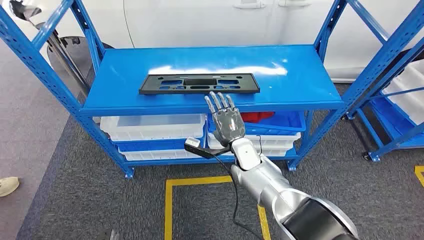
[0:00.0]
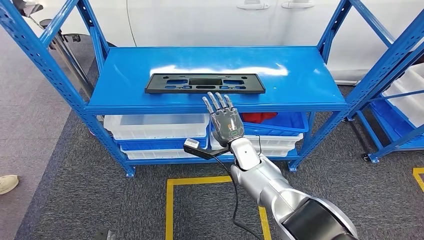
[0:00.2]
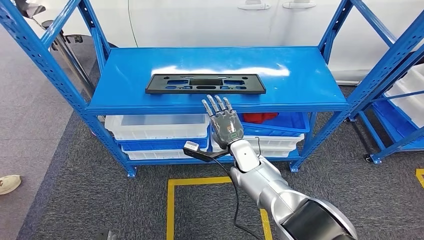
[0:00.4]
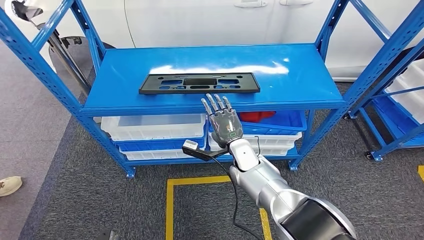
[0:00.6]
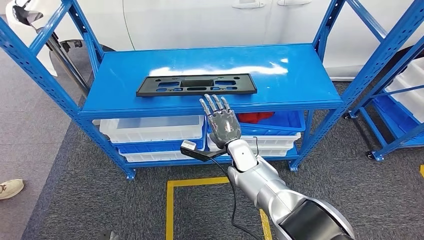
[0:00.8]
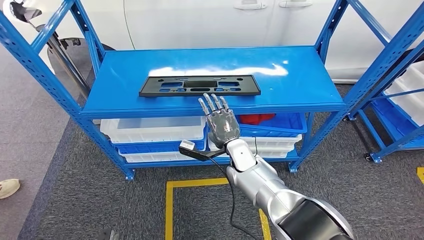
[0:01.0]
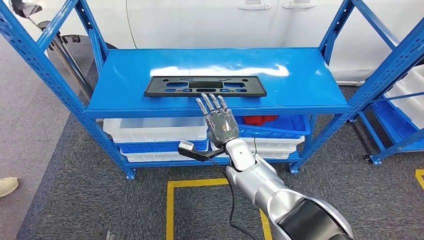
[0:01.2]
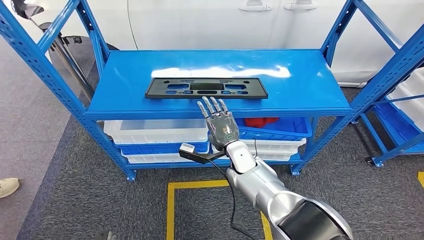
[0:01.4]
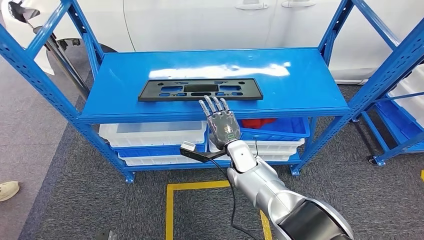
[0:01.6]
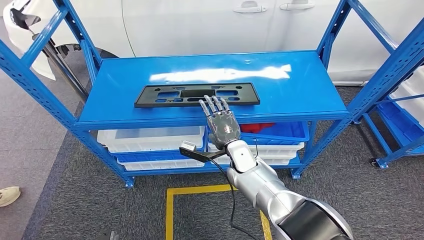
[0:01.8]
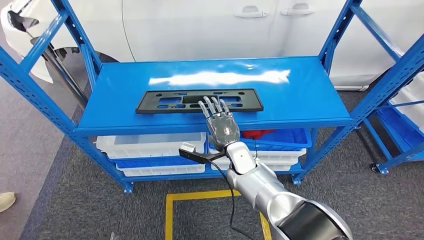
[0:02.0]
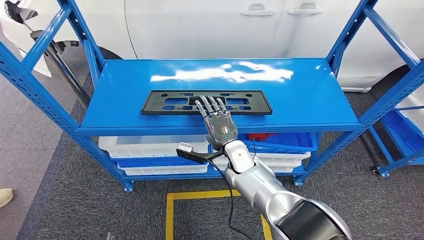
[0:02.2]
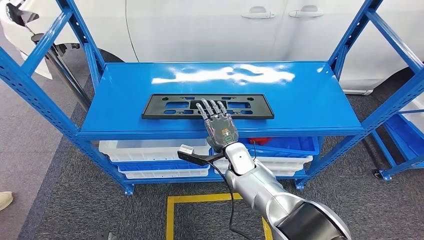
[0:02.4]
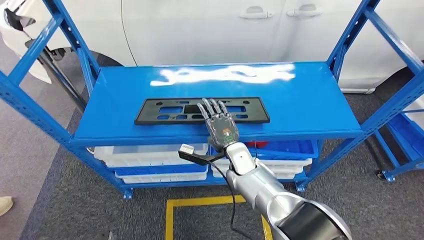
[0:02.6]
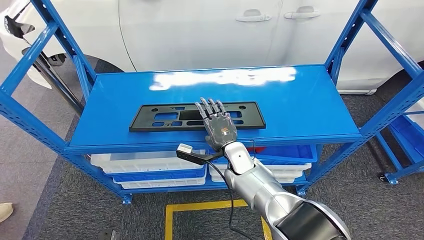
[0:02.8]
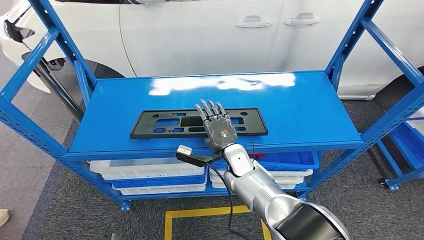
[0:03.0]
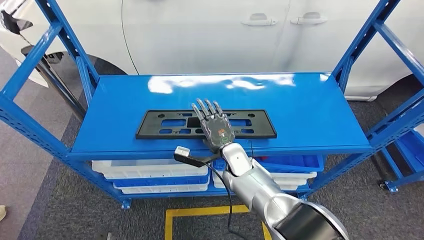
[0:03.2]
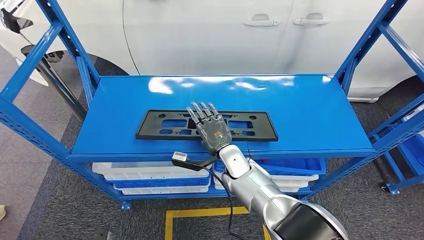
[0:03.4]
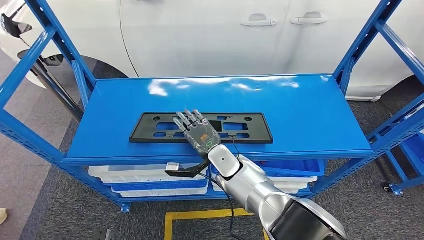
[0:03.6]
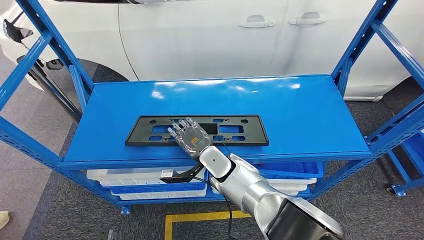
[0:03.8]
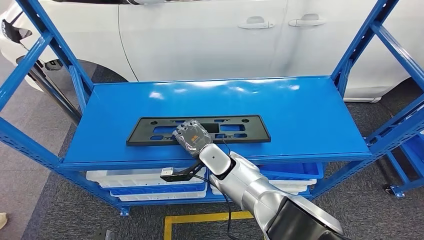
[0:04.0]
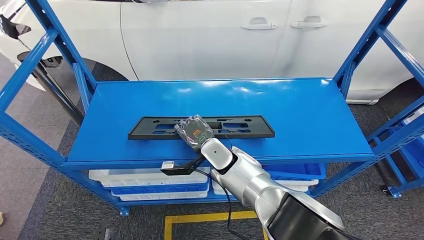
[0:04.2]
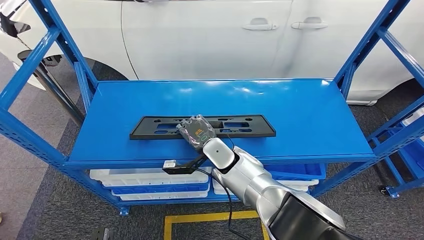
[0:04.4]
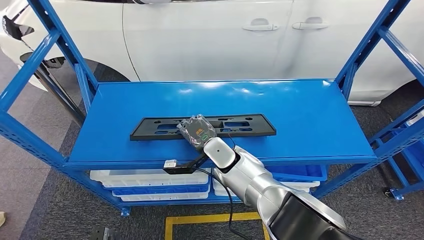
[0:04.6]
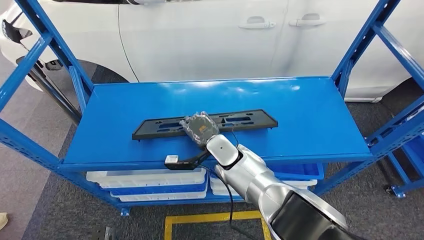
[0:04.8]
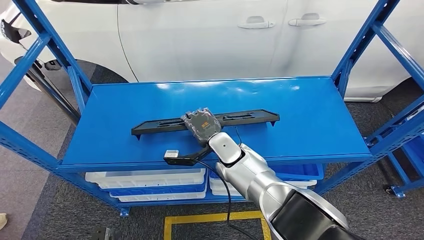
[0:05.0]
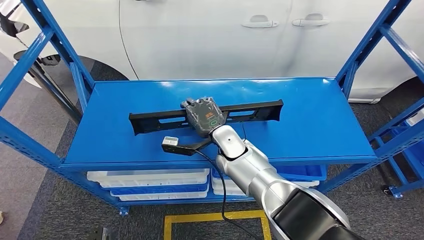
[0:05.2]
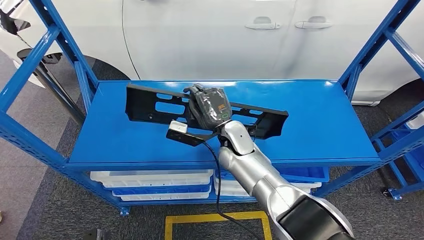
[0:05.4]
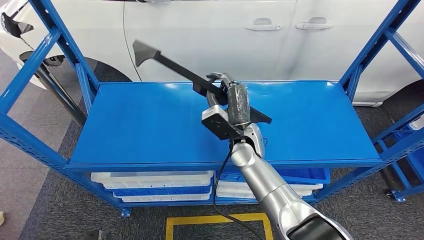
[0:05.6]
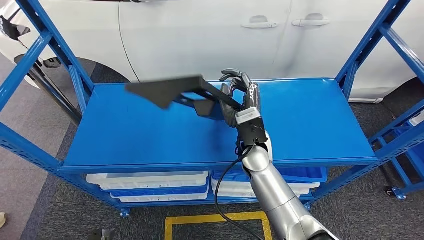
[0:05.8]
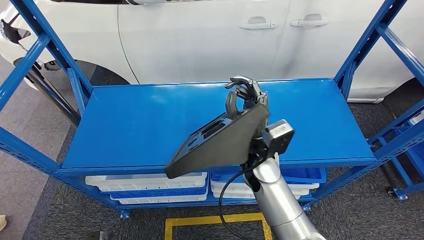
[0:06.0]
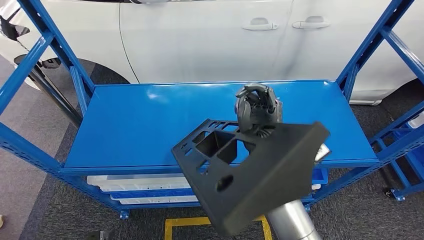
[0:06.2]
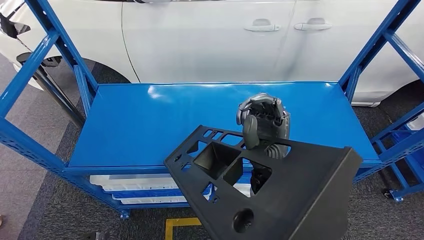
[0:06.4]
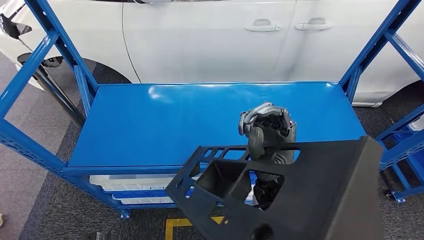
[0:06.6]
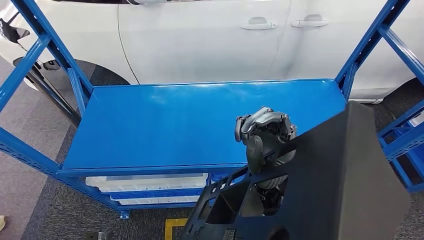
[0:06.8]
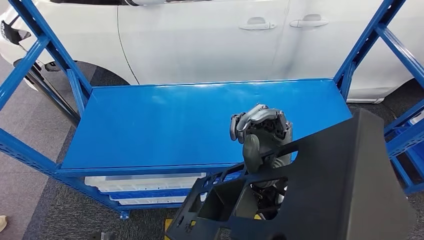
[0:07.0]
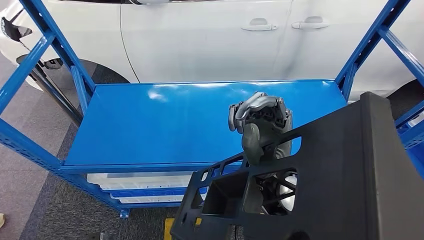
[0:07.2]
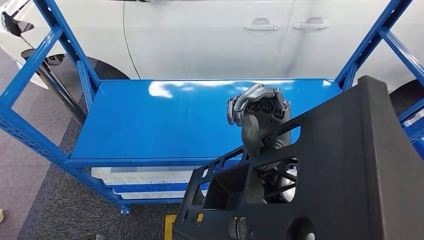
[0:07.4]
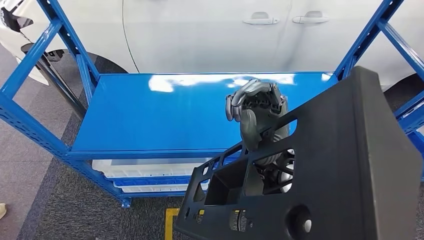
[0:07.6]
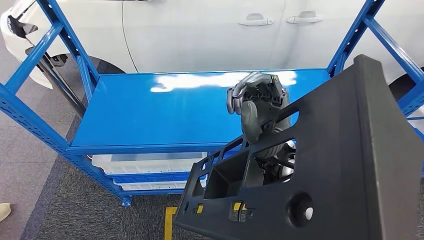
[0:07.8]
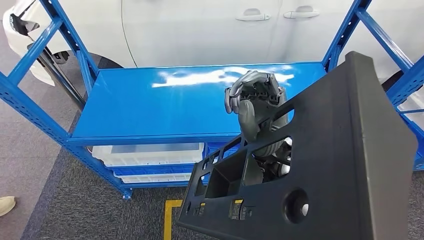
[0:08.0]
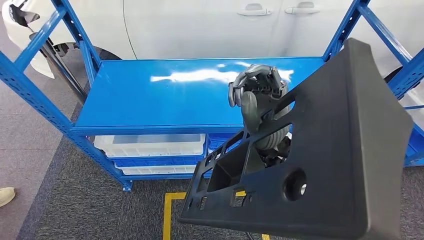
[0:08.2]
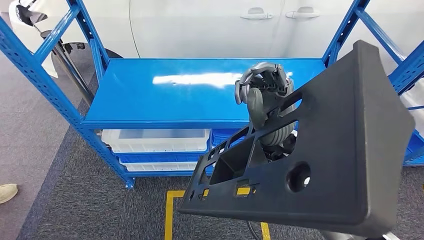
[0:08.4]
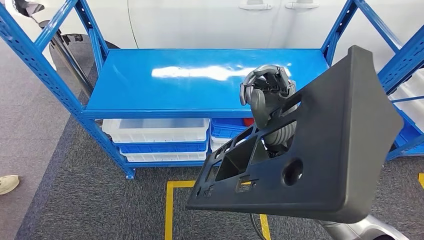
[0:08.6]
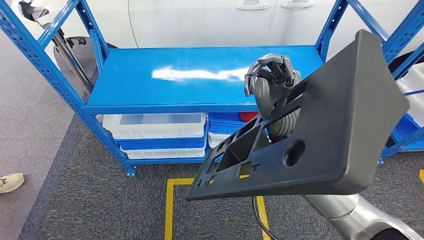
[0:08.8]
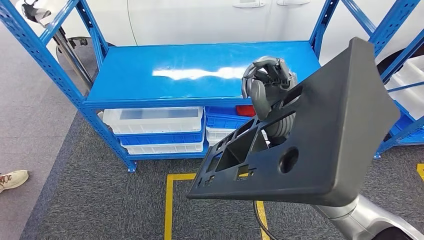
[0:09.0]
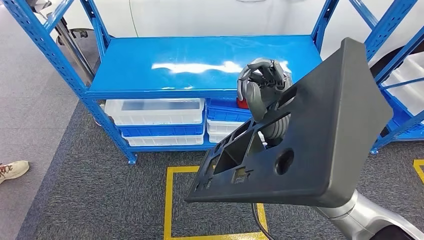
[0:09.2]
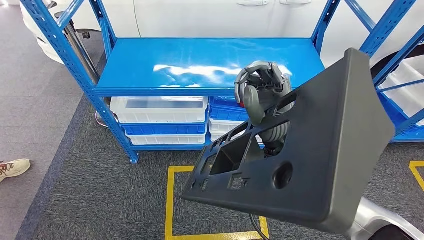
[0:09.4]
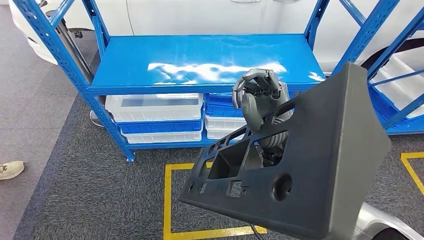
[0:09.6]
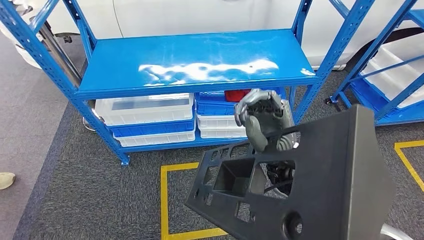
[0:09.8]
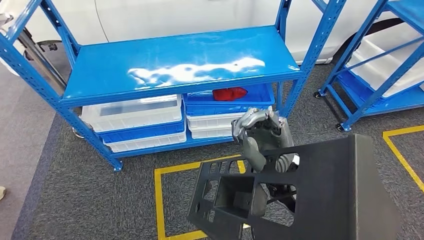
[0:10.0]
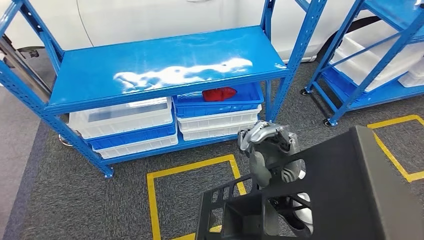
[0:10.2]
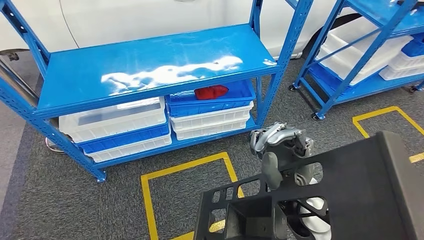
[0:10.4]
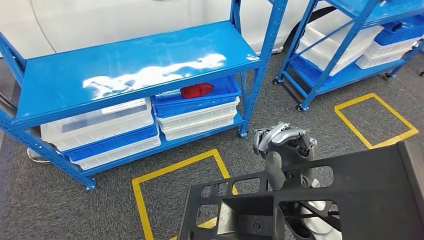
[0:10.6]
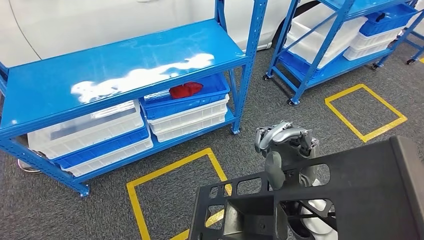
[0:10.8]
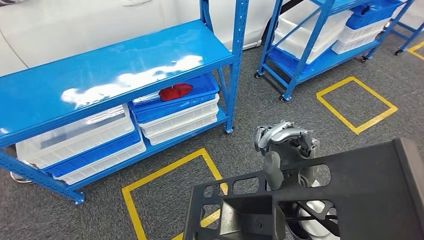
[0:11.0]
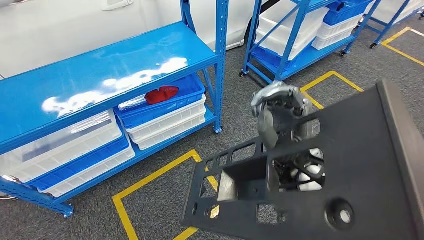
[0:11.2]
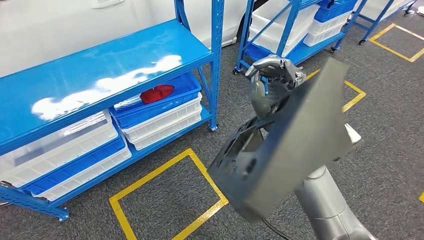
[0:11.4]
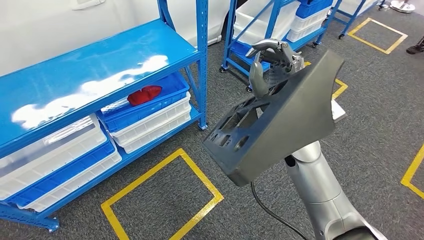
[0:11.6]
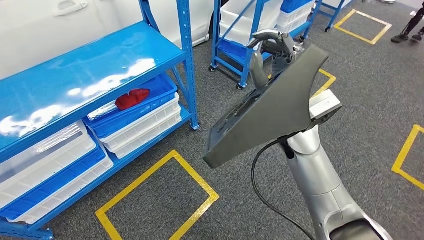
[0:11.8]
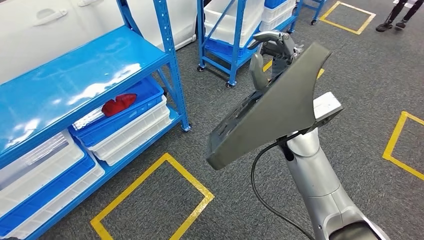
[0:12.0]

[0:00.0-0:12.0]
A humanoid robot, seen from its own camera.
Step, 0:00.0 to 0:05.0: Pick up the large material from the shelf.

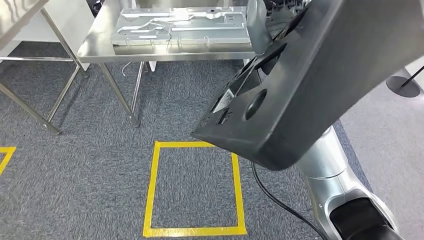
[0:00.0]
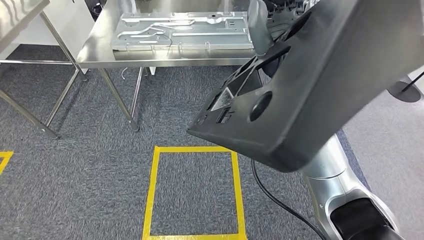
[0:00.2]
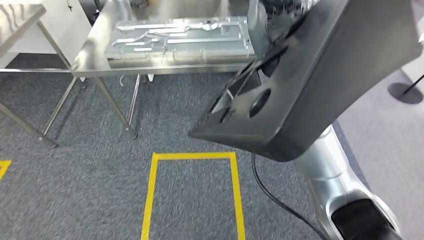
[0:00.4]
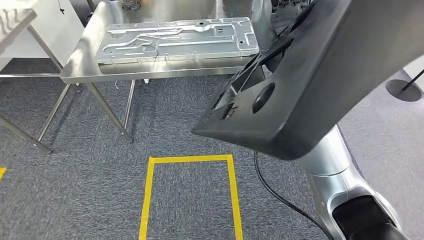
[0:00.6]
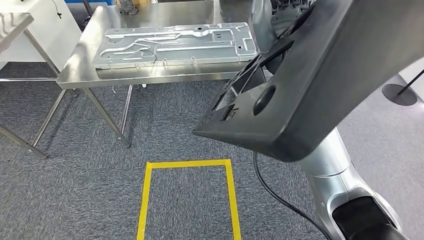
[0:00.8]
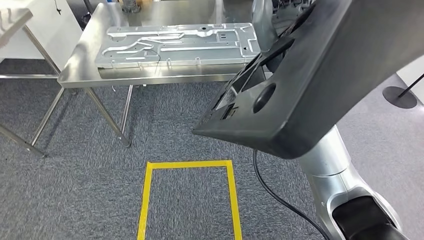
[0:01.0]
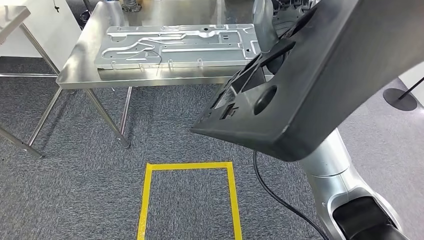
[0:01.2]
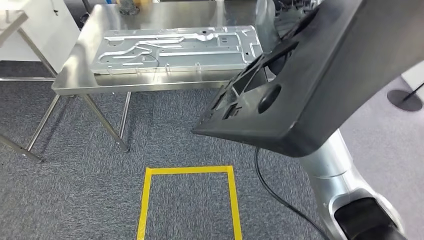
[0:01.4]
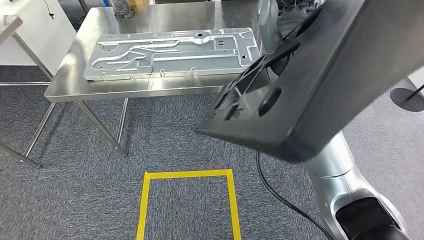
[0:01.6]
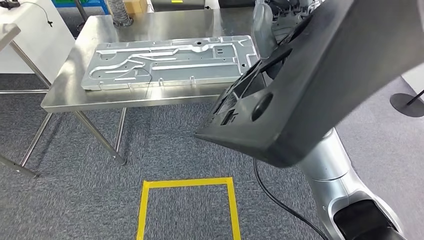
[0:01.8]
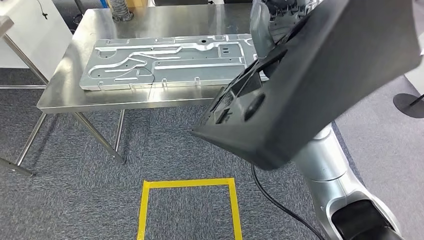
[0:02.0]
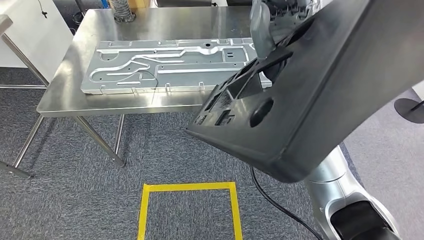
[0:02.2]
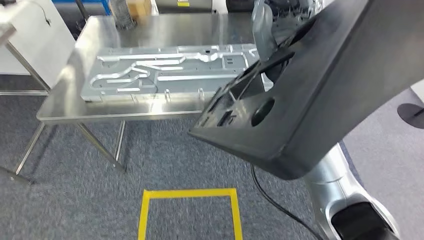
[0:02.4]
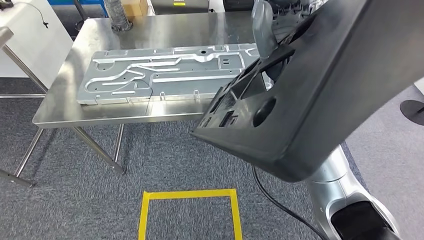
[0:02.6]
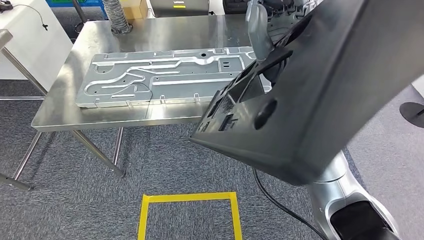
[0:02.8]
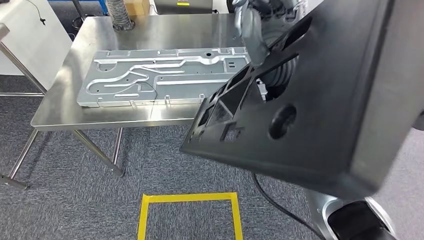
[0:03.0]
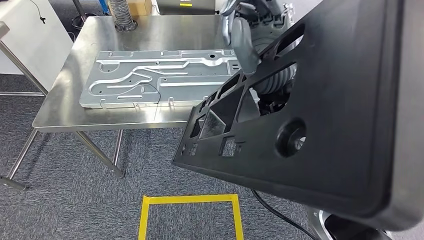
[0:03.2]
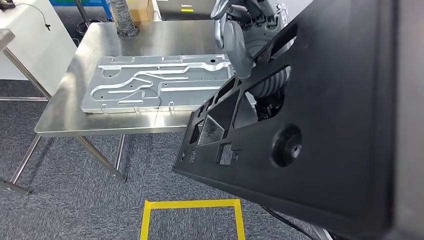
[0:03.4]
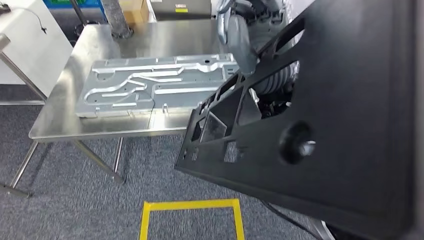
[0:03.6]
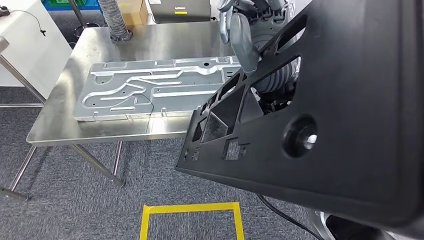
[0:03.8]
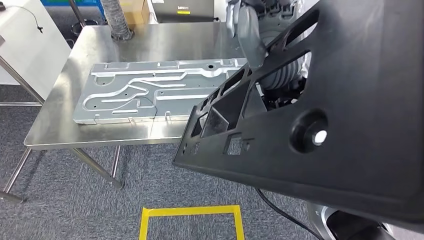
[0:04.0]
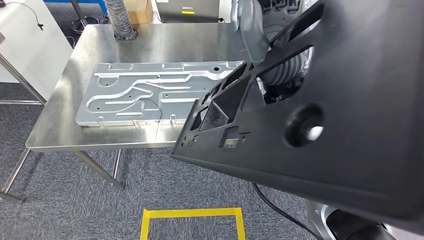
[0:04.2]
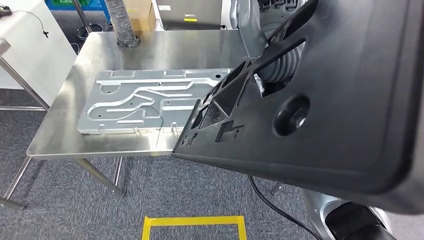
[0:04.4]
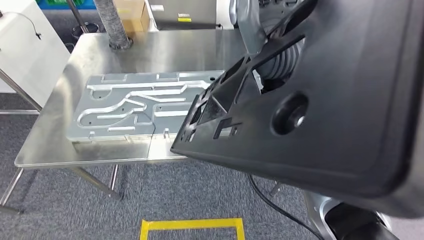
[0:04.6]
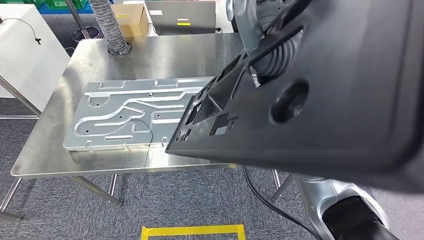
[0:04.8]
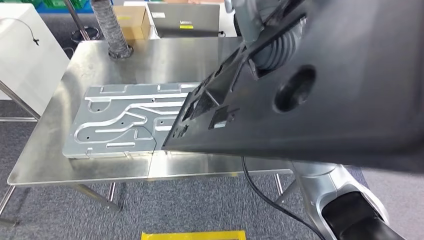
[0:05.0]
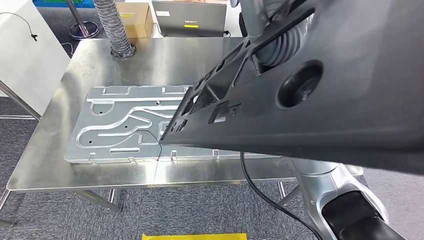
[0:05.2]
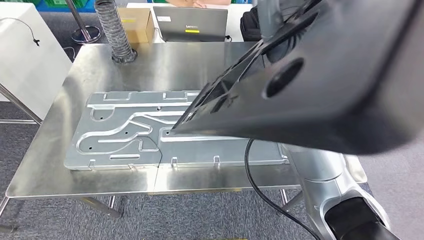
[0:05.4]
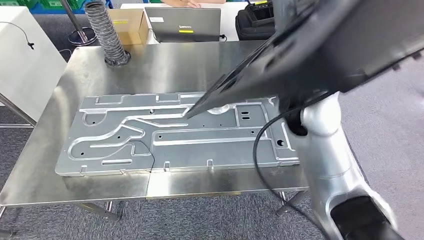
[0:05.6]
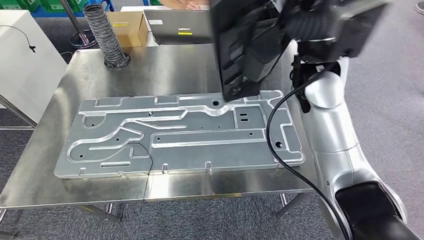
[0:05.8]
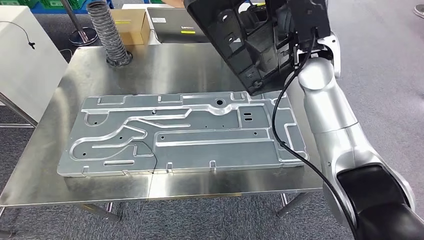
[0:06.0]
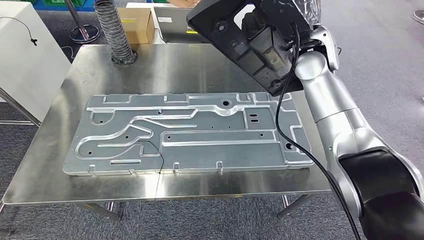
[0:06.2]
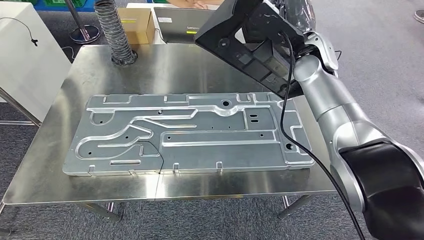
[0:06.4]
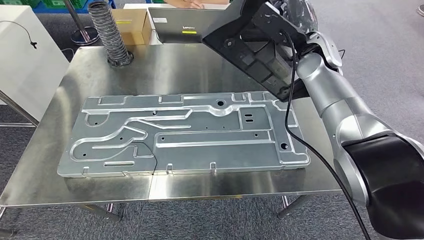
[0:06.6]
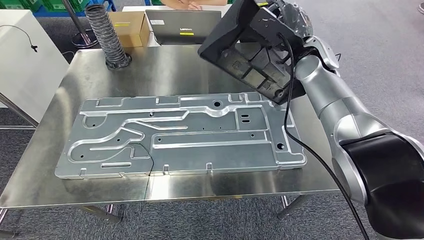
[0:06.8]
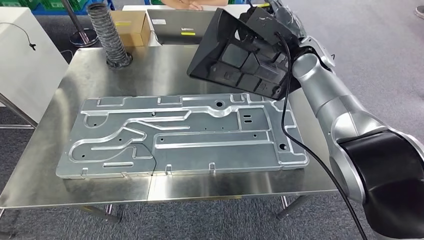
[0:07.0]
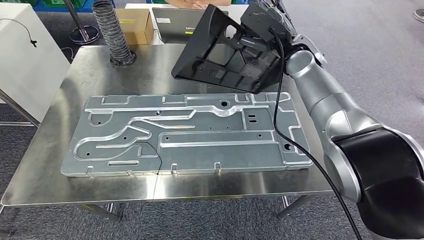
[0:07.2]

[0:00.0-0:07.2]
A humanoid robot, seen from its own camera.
Step, 0:00.0 to 0:07.0: Move the large material to the workbench.
